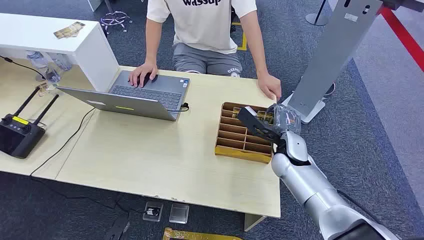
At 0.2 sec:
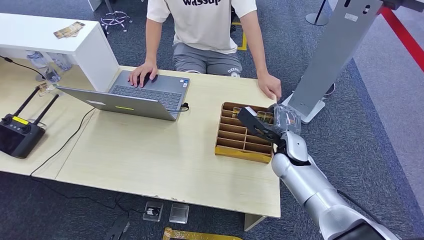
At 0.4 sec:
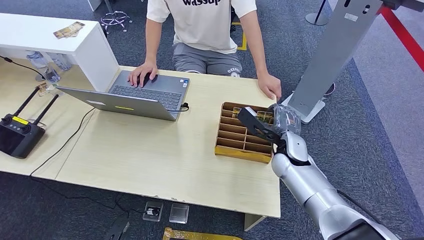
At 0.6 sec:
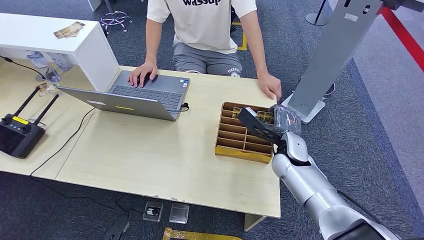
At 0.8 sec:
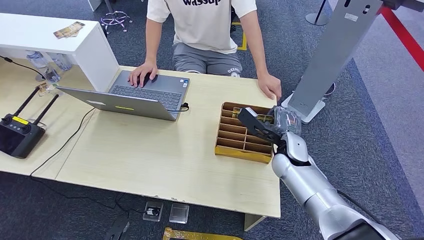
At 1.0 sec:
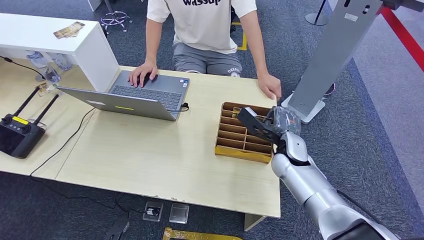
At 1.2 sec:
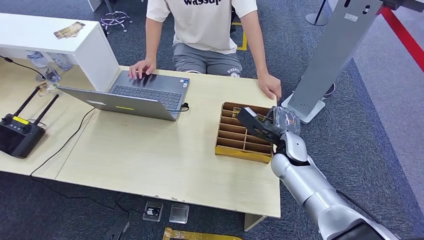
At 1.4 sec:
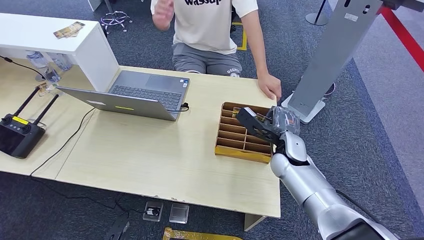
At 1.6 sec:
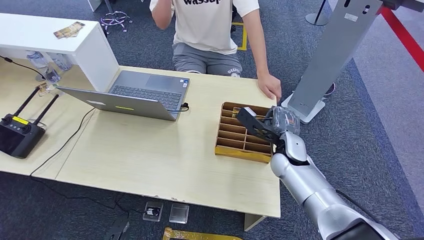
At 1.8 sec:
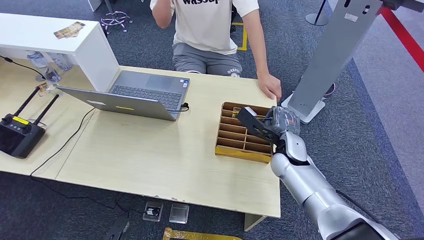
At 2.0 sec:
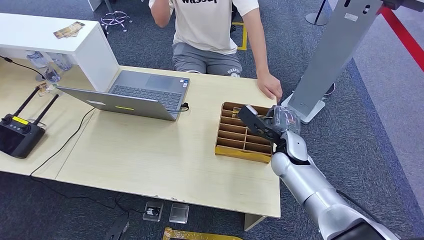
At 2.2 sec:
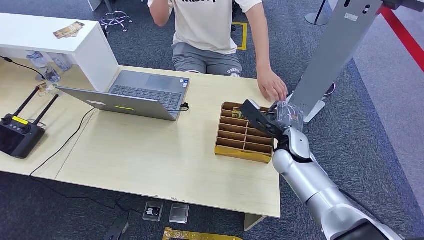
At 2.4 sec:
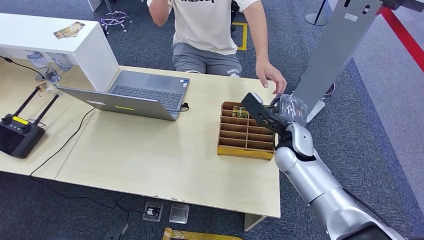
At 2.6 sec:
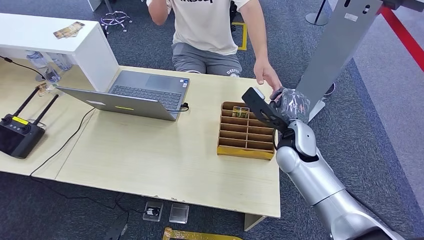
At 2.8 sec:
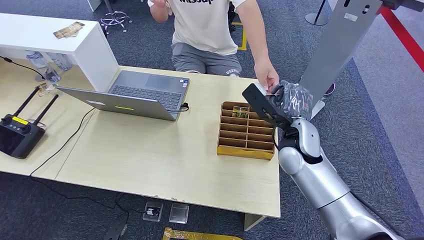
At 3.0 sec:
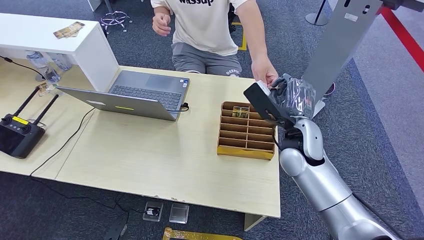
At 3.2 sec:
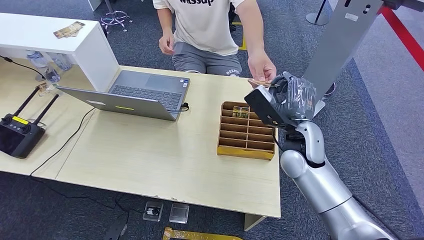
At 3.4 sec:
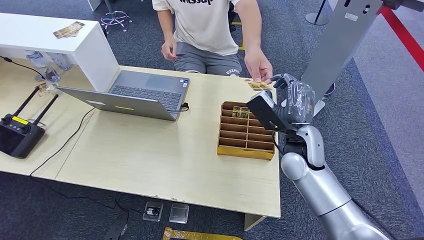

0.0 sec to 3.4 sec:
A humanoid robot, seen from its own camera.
Task of the whole recording: Pick up the card and hand it over to the target person.
Step, 0.0 sec to 2.2 sec: Pick up the key card from the card box.
Step, 2.4 sec to 3.4 sec: Hand the key card to the target.
1.6 sec to 3.4 sec: The right hand goes upward and returns, about 10 cm each way.
